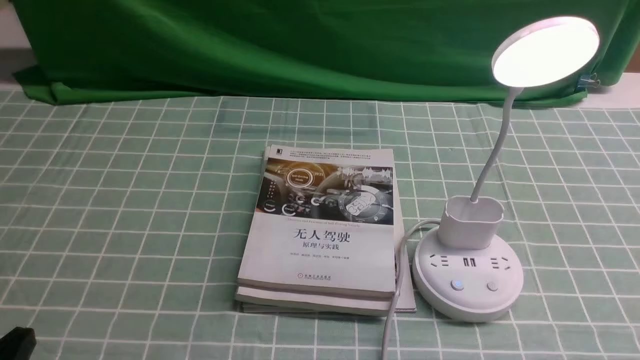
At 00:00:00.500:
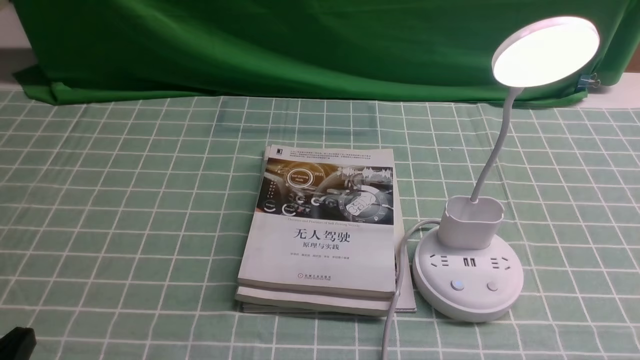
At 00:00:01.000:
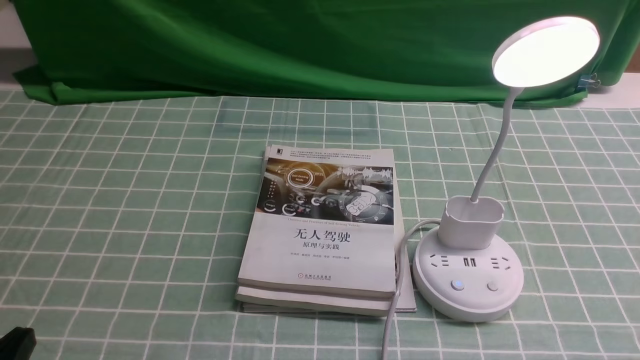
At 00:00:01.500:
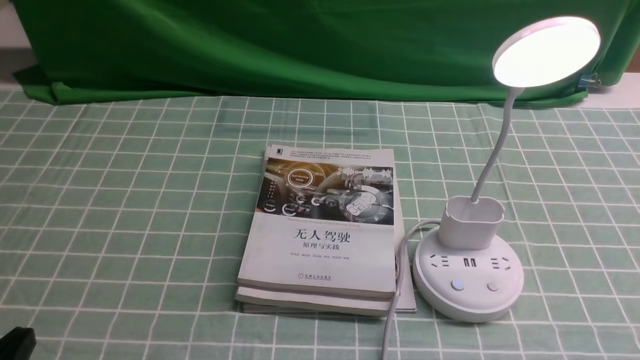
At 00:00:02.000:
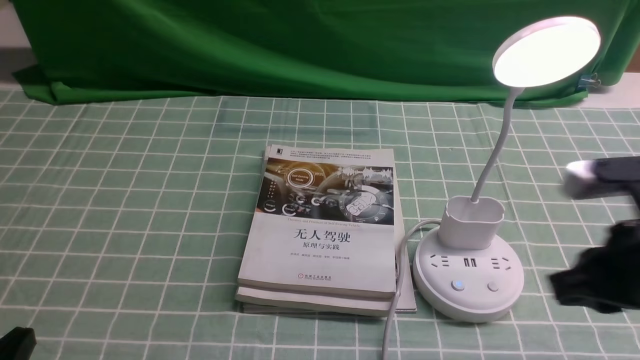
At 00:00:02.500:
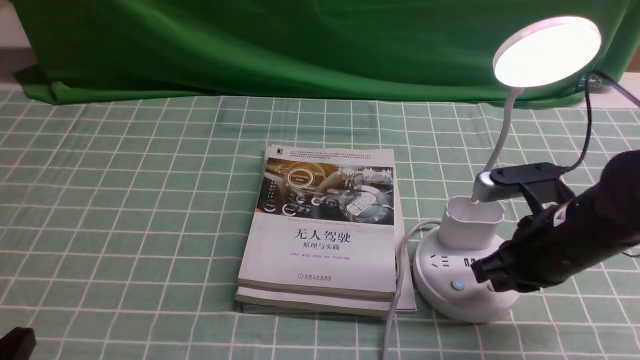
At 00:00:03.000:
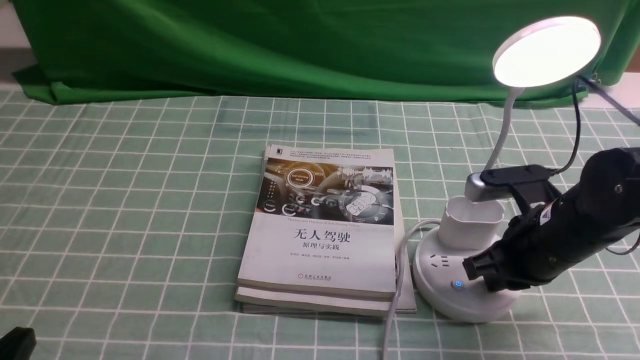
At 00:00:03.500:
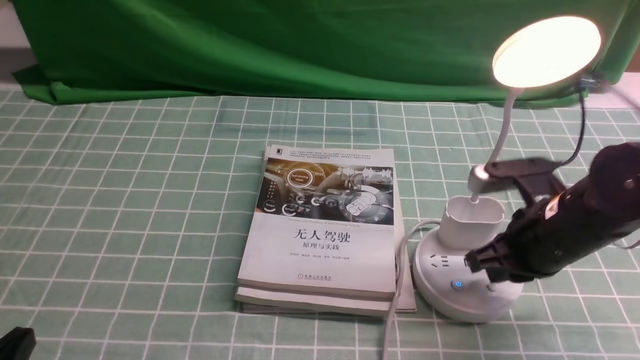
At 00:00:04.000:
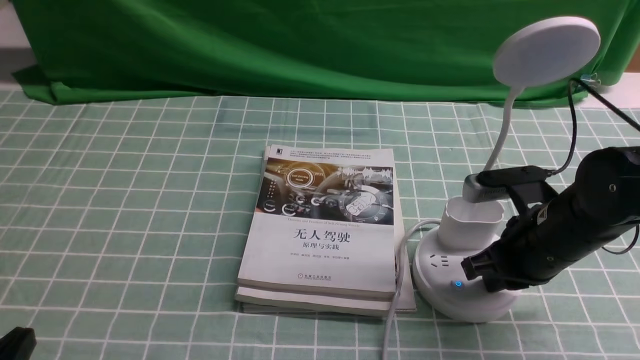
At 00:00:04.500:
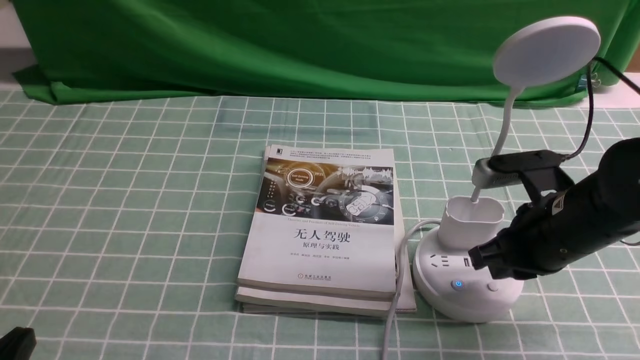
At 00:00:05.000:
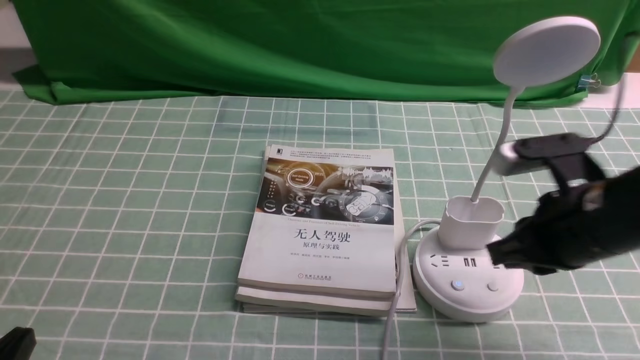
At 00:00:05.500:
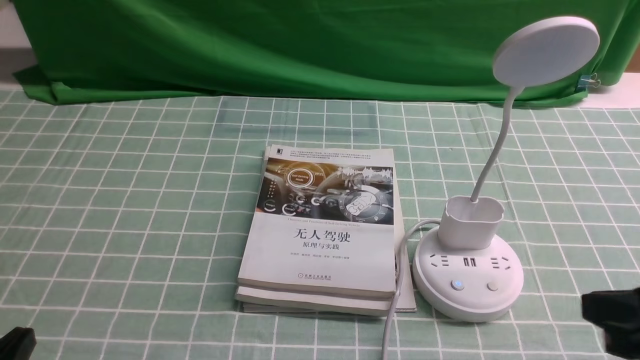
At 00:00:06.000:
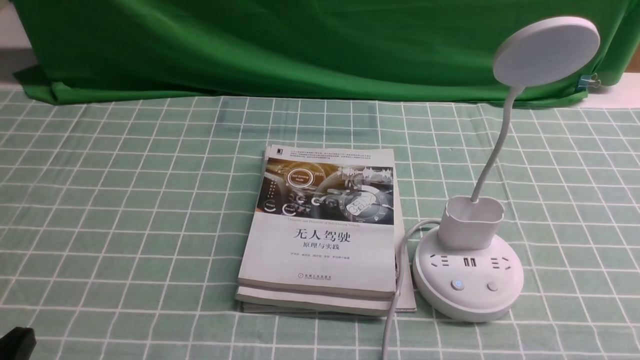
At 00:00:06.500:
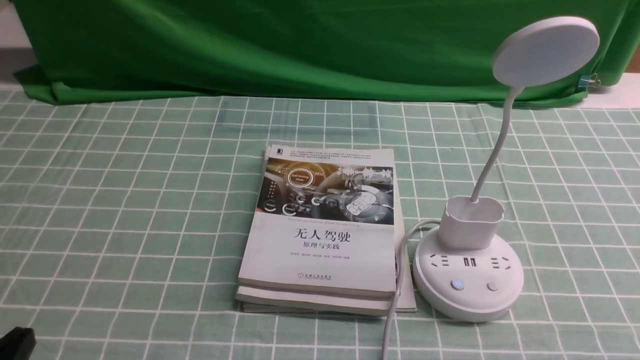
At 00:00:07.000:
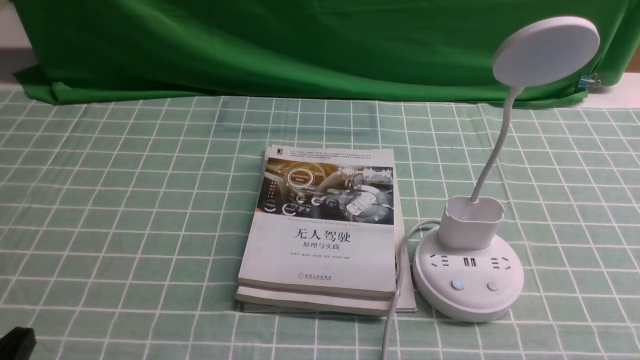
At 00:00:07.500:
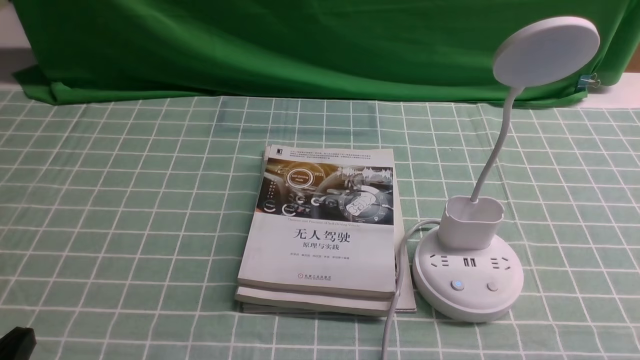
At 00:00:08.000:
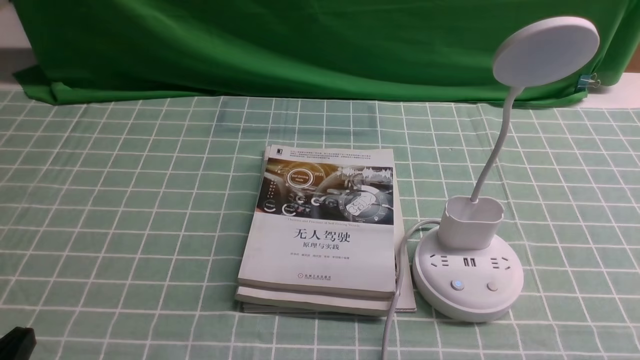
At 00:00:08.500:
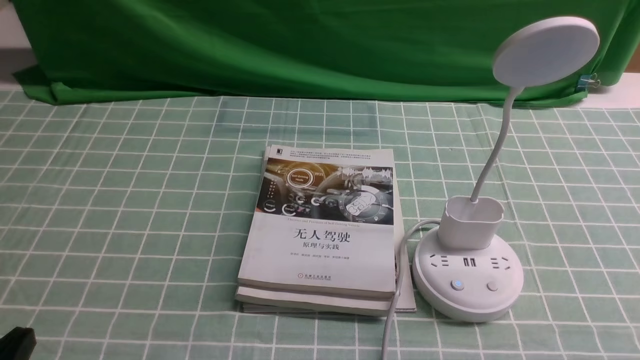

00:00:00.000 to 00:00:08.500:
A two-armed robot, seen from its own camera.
Task of the whole recording: turn off the desk lamp on the blue coffee tablecloth by hand.
Step, 00:00:00.000 to 00:00:04.500: use the right arm to press the button switch on the lamp holder.
00:00:02.000 to 00:00:04.000: The right gripper shifts approximately 15 cm forward and downward.
00:00:04.000 to 00:00:06.500: The right gripper heads backward and to the right, covering some 25 cm.
